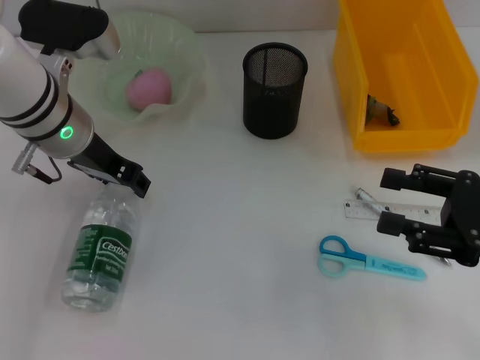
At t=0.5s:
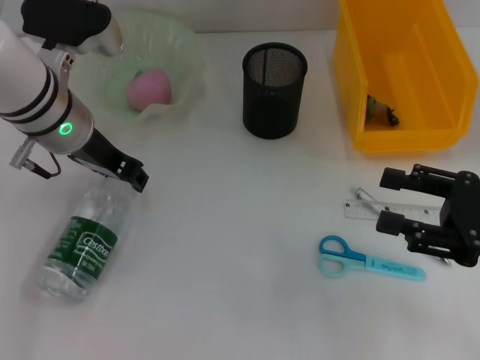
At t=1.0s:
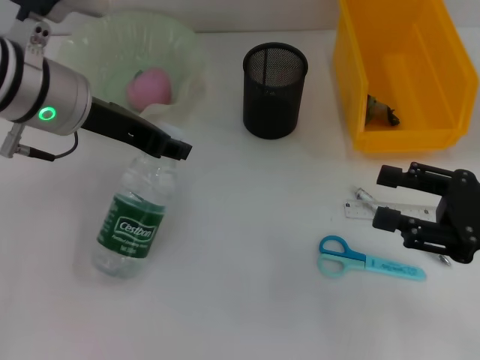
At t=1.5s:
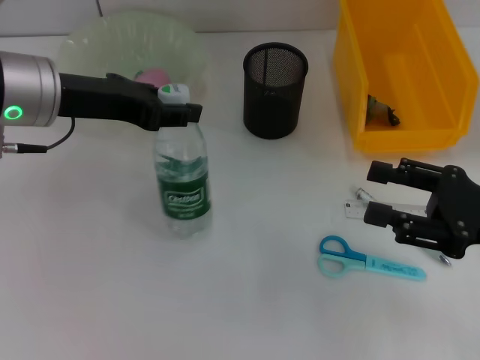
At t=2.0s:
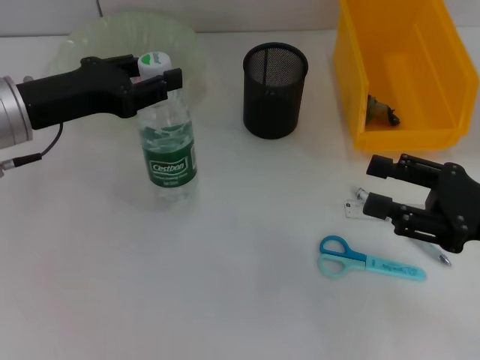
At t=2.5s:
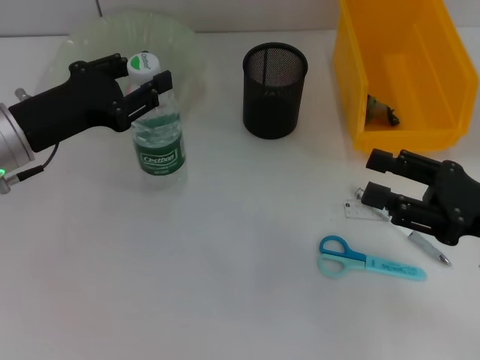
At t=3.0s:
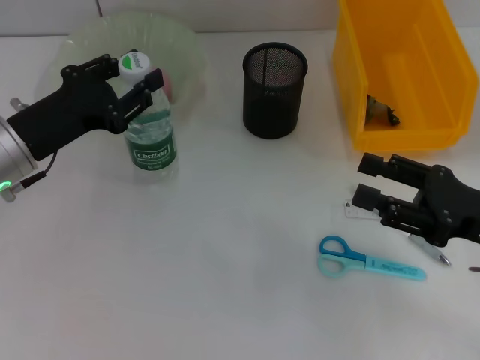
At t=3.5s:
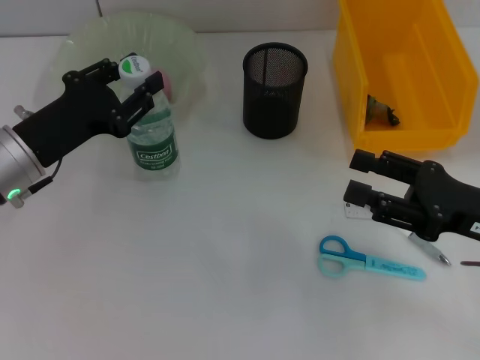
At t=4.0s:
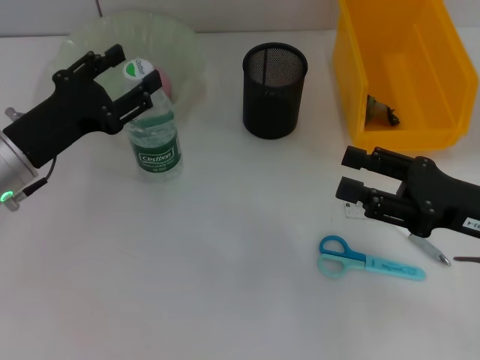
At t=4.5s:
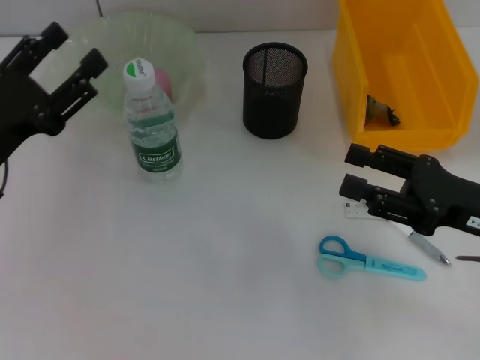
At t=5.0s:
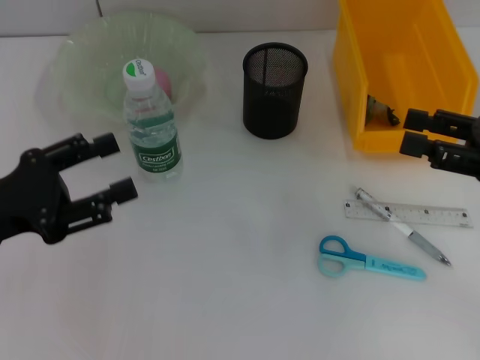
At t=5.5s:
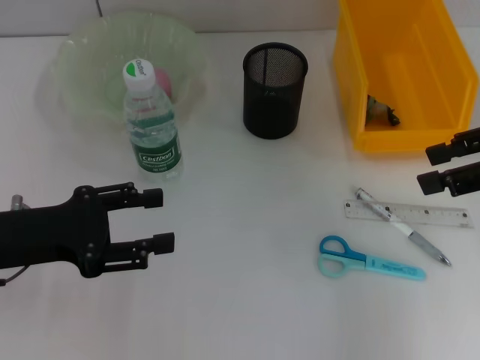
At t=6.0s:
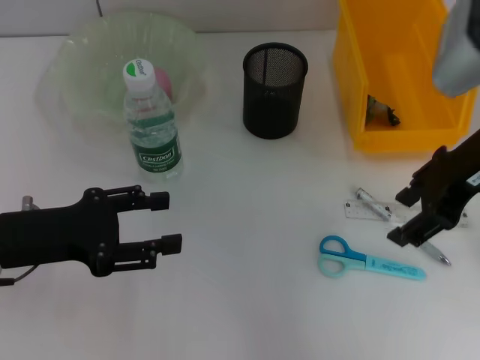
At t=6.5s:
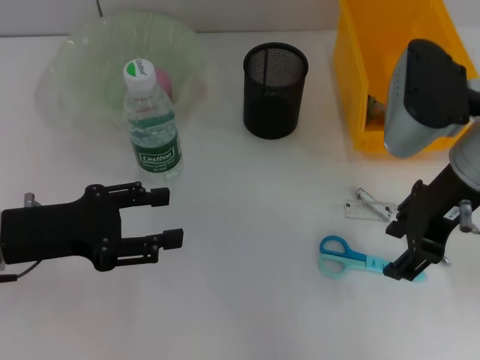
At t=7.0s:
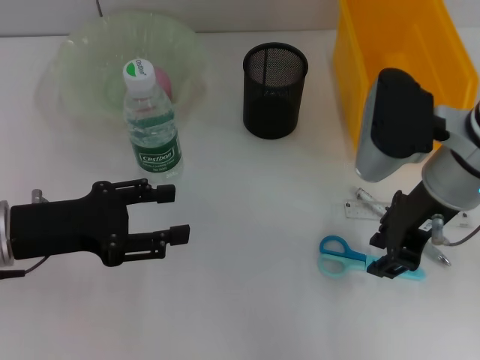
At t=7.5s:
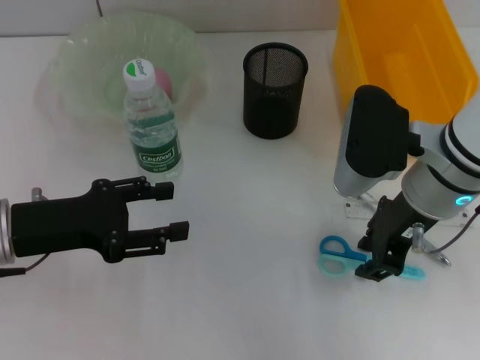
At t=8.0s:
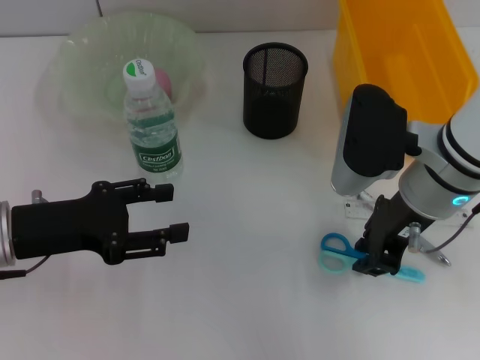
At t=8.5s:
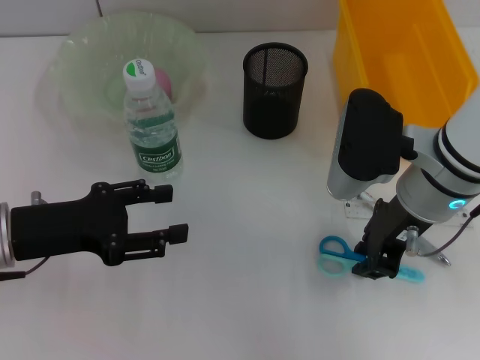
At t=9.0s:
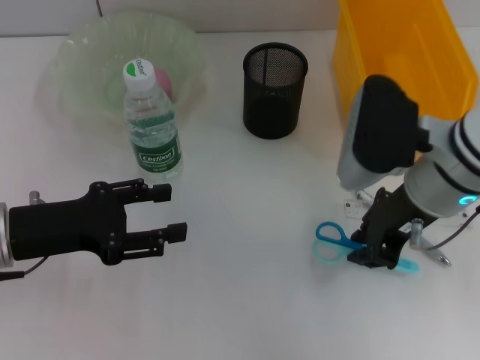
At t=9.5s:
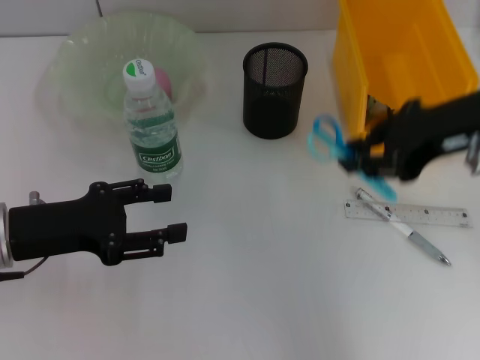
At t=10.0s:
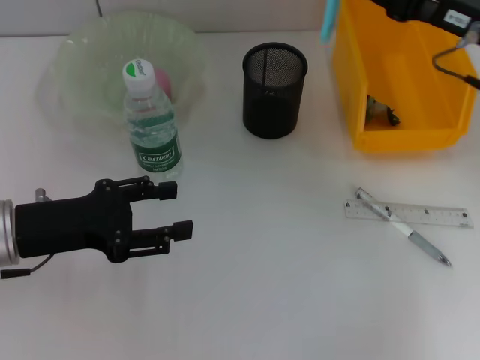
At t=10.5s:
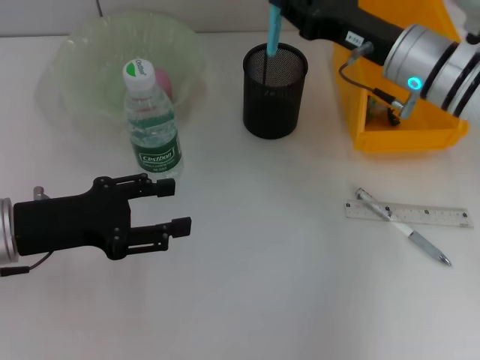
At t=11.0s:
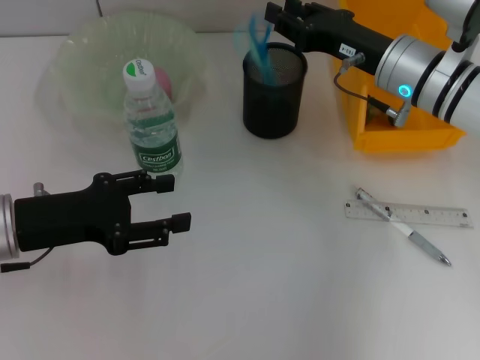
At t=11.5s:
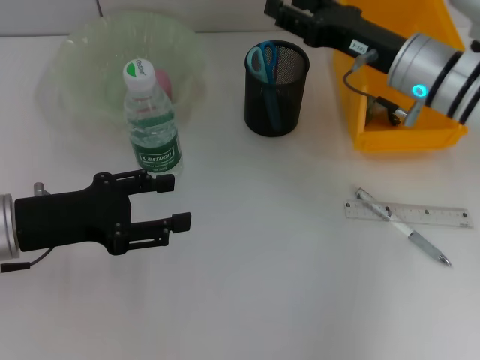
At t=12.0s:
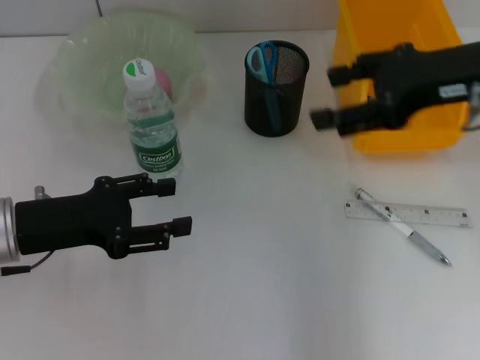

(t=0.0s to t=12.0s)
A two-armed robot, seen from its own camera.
Step, t=0.5s - t=4.0s: Place the water bottle on the table with the left hand.
Step, t=4.5s - t=8.0s: Grab the blue scissors with the right hand.
Step, t=8.5s - t=11.0s: Place the blue scissors into the pen holder with the right hand.
t=0.0s - t=2.0s: The left gripper is displaced to the left by roughly 5 cm.
t=2.0s - t=4.0s: The left gripper heads downward, covering roughly 5 cm.
t=4.0s - t=6.0s: The left gripper is displaced backward by roughly 5 cm, while the right gripper travels upward, forward and to the left by roughly 15 cm.
t=6.0s - t=8.0s: The right gripper goes some 10 cm downward and to the left, and closes its fingers.
t=8.0s - t=10.0s: The right gripper travels to the right and forward by some 10 cm.
t=10.0s - t=12.0s: The right gripper is displaced upward by approximately 5 cm, and opens up.

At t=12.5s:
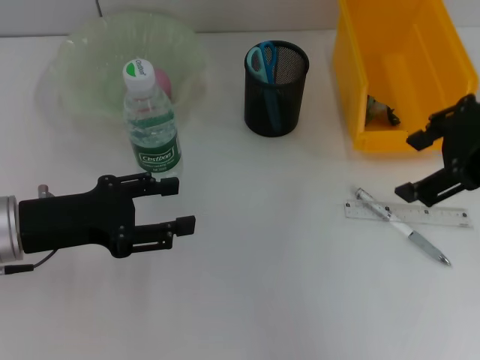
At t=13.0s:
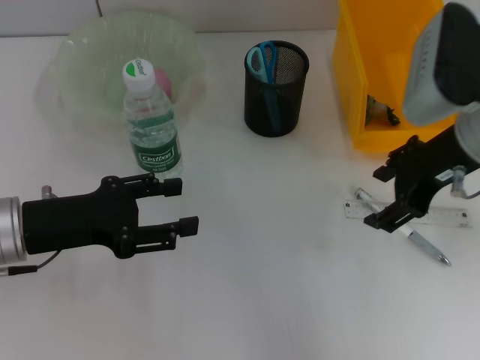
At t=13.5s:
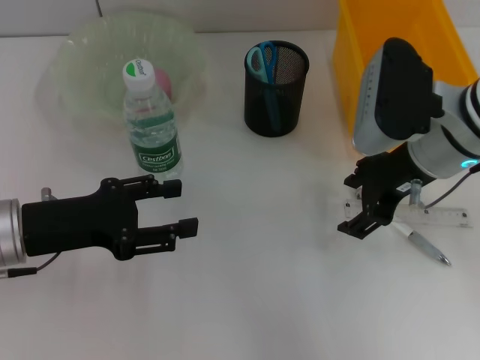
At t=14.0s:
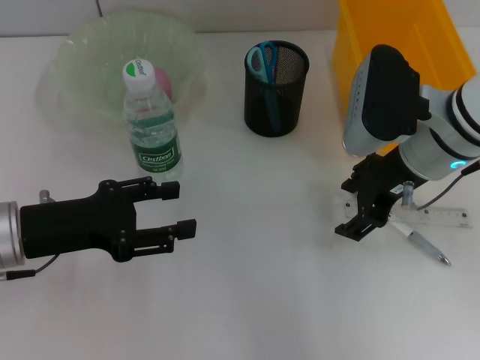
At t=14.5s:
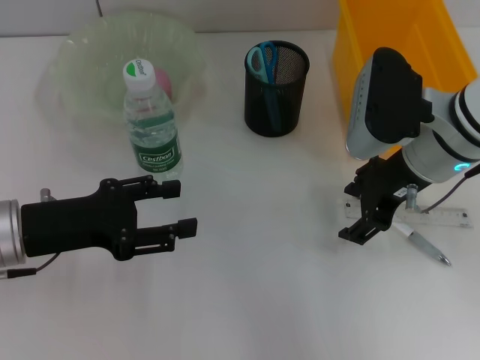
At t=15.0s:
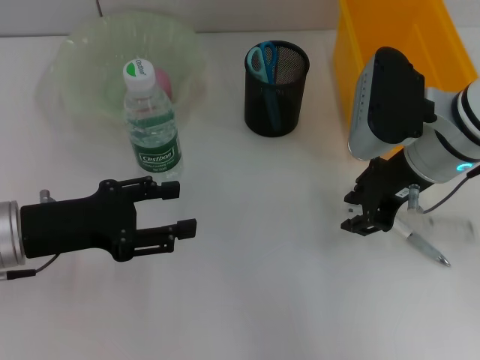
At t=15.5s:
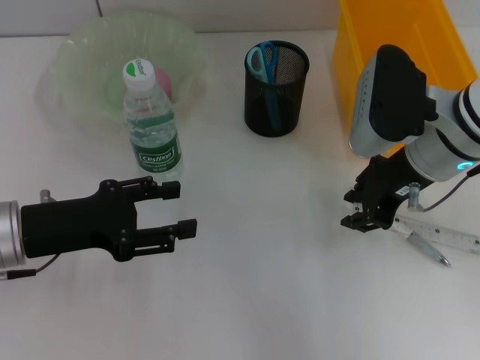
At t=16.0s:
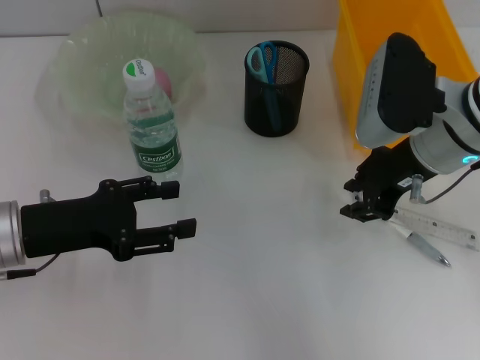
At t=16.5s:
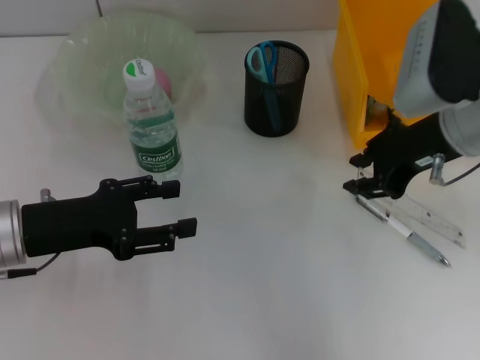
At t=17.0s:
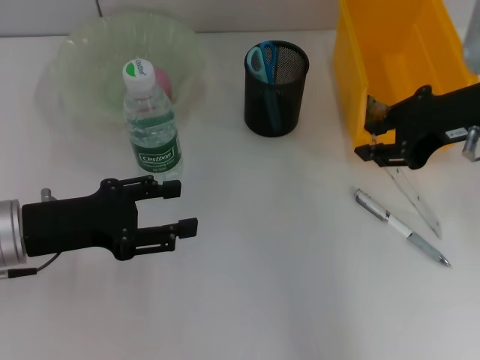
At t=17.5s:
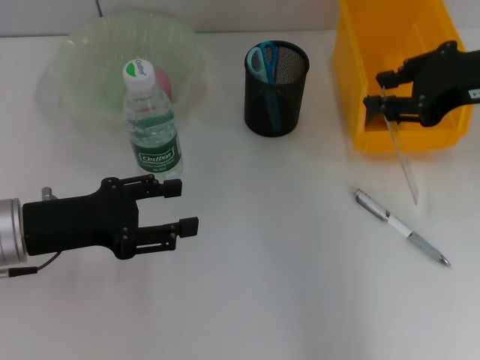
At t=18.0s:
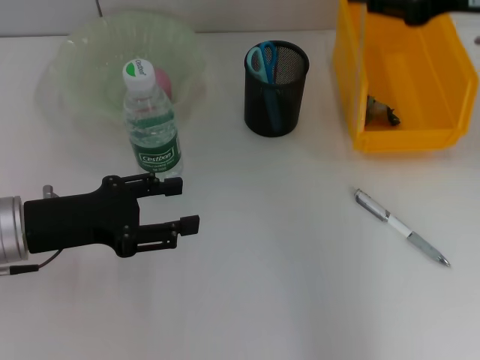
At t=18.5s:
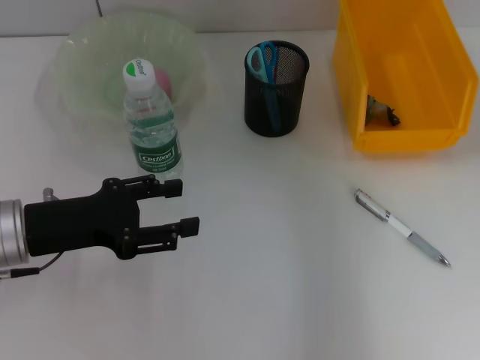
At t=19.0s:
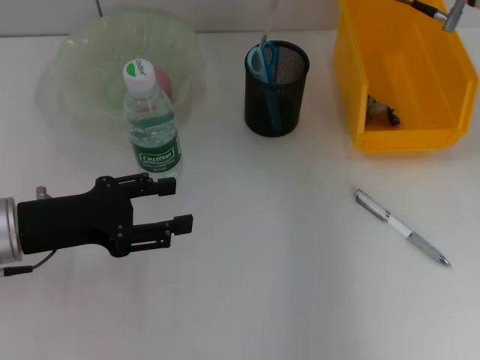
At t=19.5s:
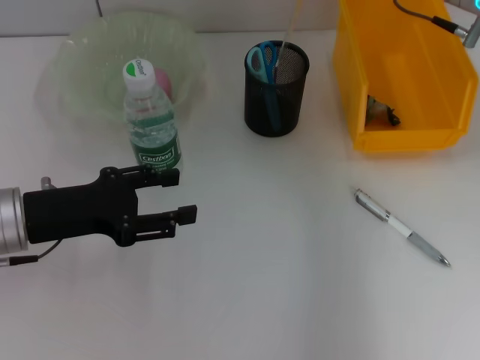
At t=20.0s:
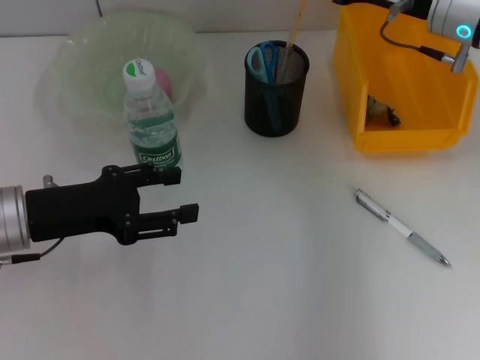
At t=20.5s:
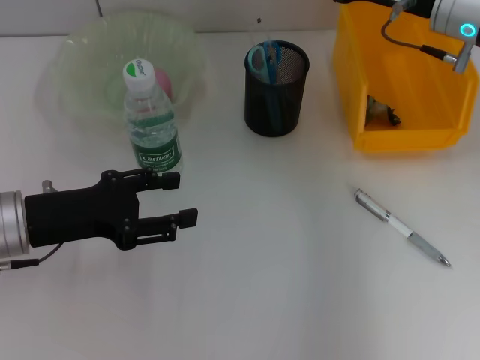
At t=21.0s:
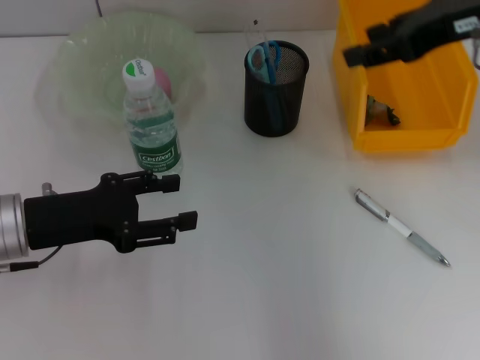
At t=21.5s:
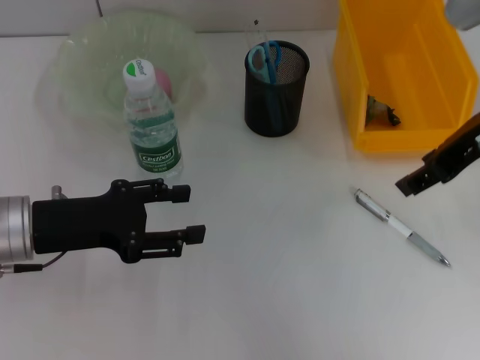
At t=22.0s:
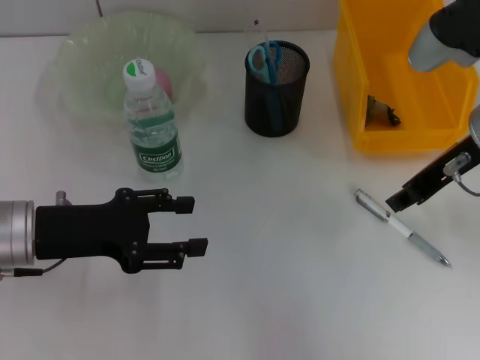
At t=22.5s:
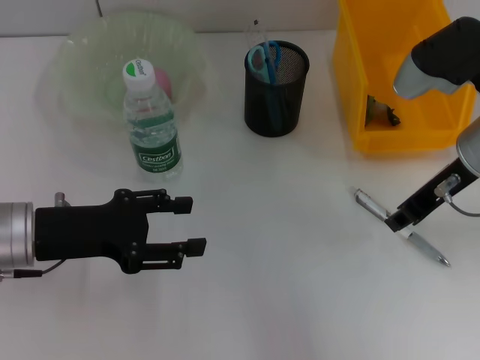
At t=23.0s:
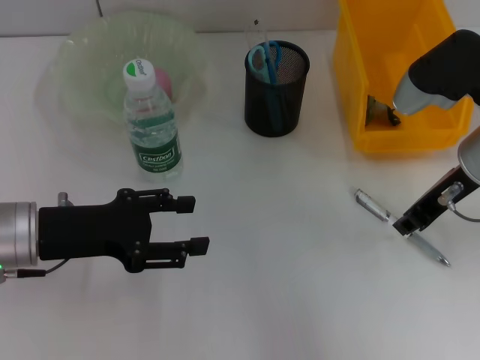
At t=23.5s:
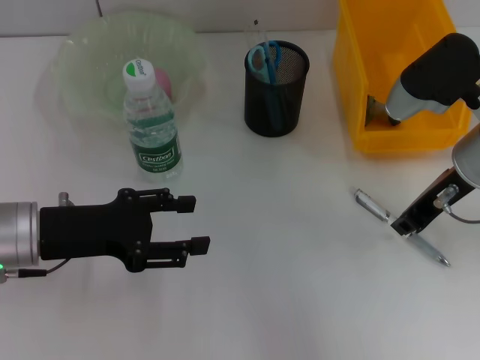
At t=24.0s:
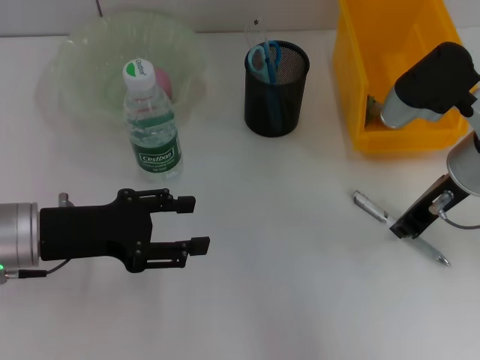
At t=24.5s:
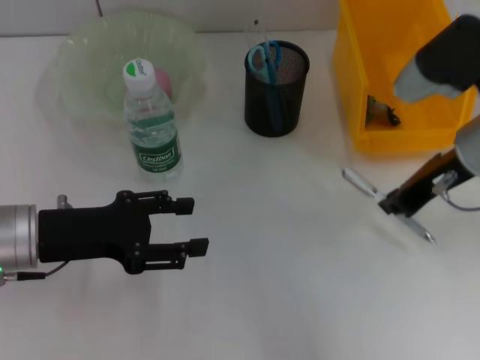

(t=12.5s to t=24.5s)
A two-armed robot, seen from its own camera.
Step, t=12.5s - t=15.5s: Grab the ruler with the right hand.
Step, t=16.0s - t=20.5s: Place the ruler into the pen holder with the right hand.
Step, t=21.0s - t=24.0s: Grab the gray spring-action pen with the right hand.
t=12.5s - t=14.5s: The right gripper goes about 15 cm downward and to the left.
t=14.5s - t=16.5s: The right gripper closes up.
t=16.5s - t=18.5s: The right gripper is displaced upward and forward by roughly 10 cm.
t=18.5s - t=20.5s: The right gripper shifts approximately 5 cm downward.
t=20.5s - t=22.5s: The right gripper moves backward, some 5 cm, and reaches some 5 cm upward, then returns.
t=22.5s - t=24.5s: The grippers stay close to where they were, moving slightly.

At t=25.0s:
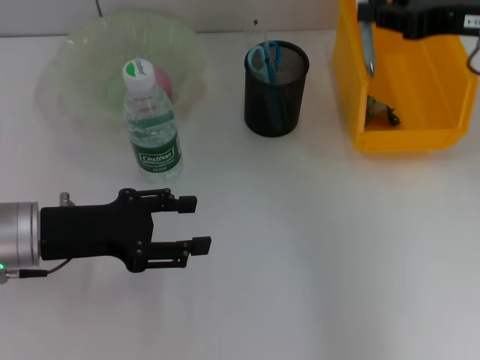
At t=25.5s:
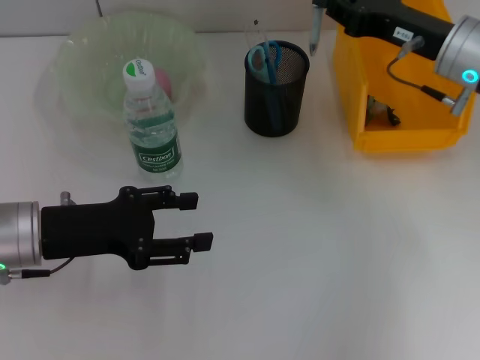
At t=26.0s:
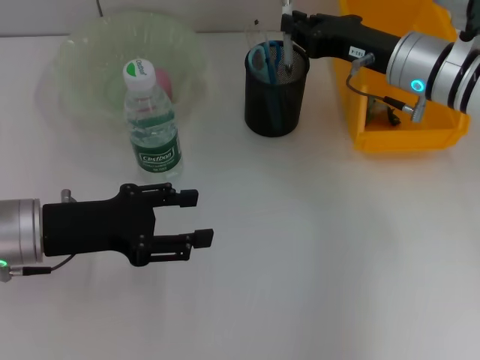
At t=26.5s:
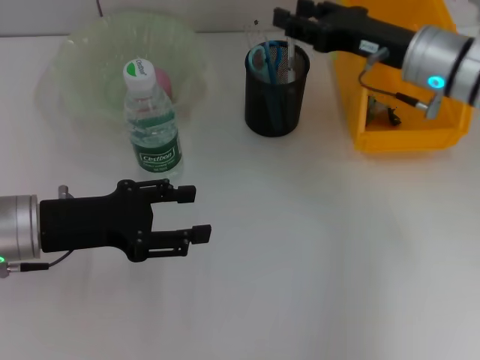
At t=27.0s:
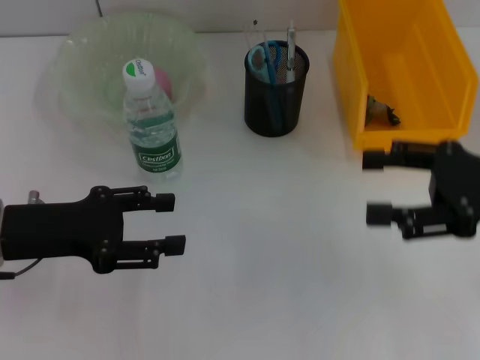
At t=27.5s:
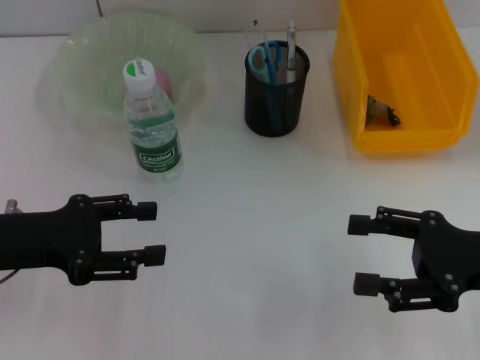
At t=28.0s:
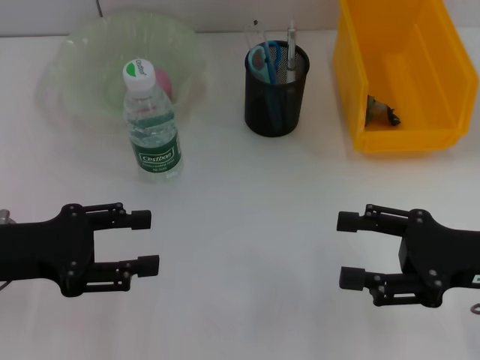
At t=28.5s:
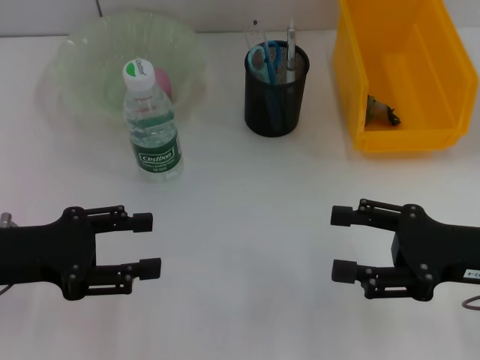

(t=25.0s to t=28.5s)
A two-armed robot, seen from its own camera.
t=25.0s - t=27.0s: The right gripper is displaced downward and backward by approximately 10 cm, and opens its fingers.
t=27.0s - t=28.5s: The right gripper moves downward, some 5 cm.
